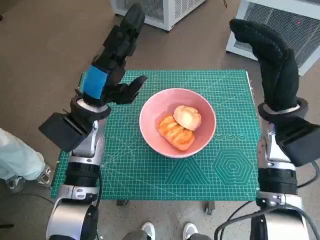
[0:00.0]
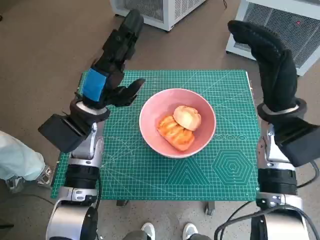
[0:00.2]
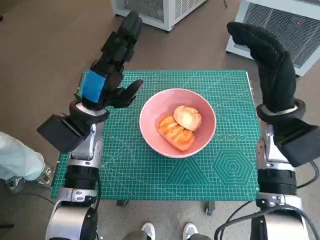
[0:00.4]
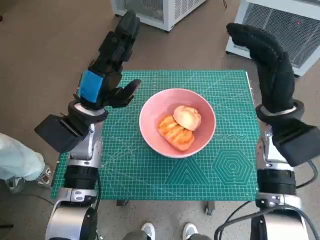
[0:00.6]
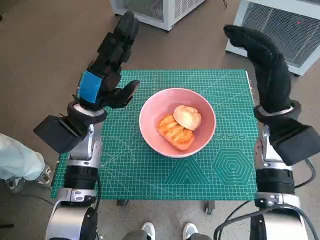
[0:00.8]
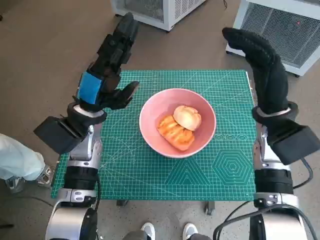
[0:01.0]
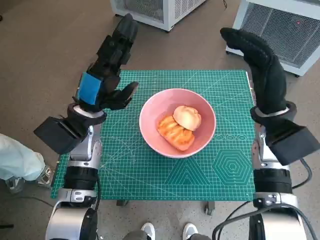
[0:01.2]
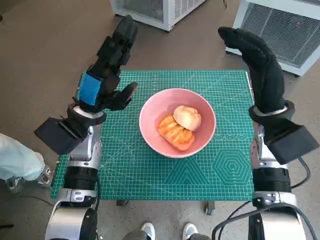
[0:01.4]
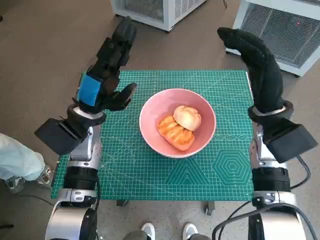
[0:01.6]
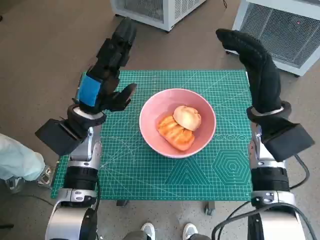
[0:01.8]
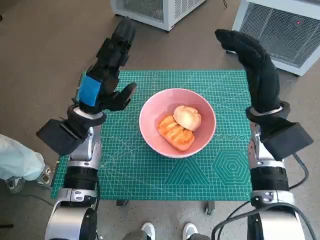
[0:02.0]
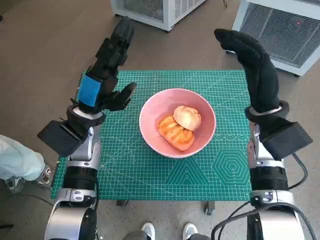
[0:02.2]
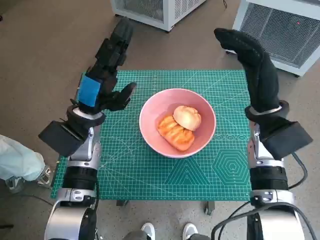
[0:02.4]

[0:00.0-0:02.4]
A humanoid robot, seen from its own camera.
Task of the whole recording: Push the bowl into the center of the table and put the bread into the bowl.
0:00.0 to 0:01.2: The hands move only a little.
0:01.2 to 0:02.4: Both hands stay about where they are.

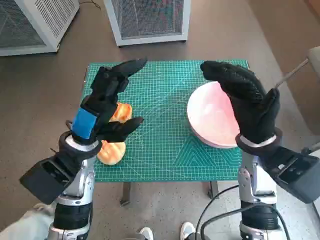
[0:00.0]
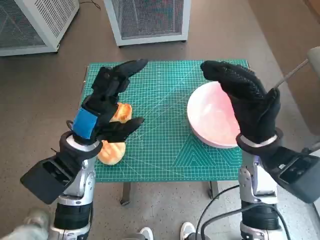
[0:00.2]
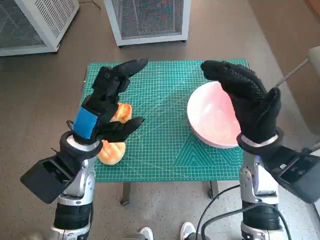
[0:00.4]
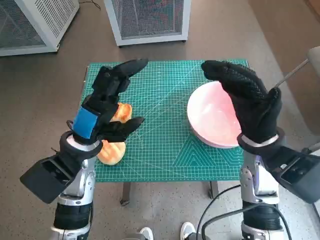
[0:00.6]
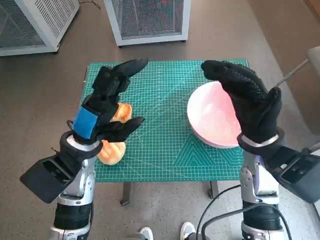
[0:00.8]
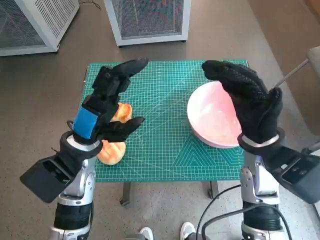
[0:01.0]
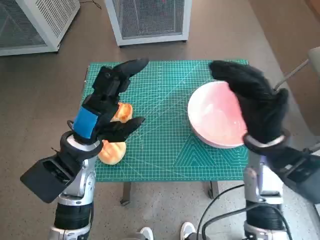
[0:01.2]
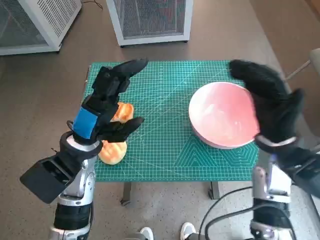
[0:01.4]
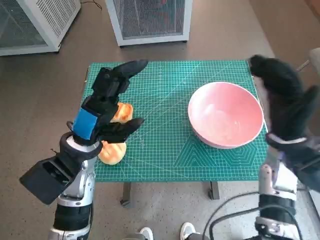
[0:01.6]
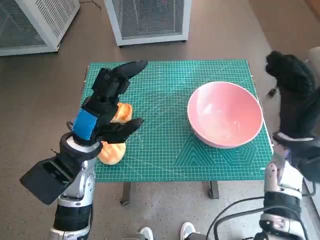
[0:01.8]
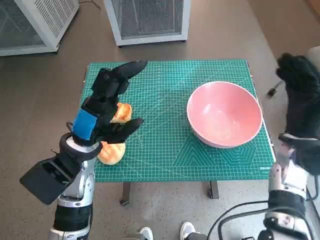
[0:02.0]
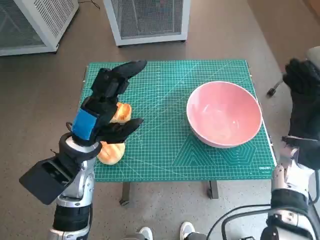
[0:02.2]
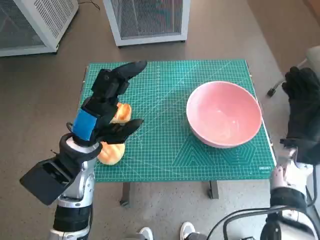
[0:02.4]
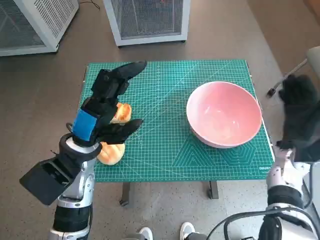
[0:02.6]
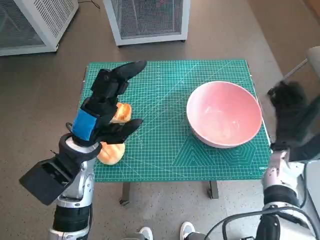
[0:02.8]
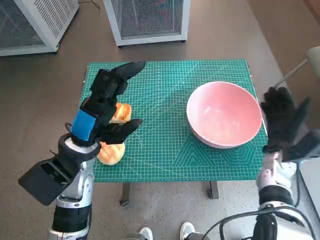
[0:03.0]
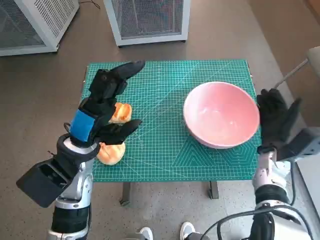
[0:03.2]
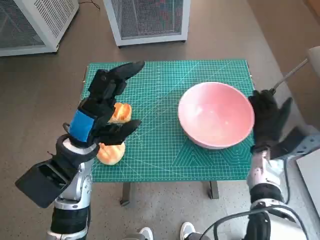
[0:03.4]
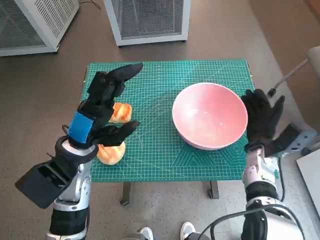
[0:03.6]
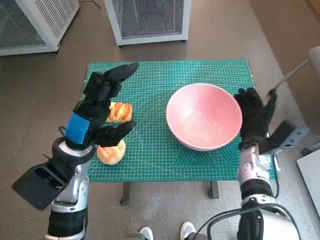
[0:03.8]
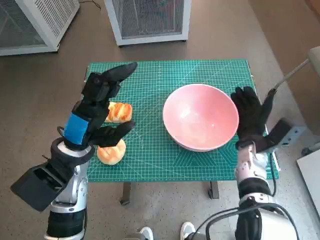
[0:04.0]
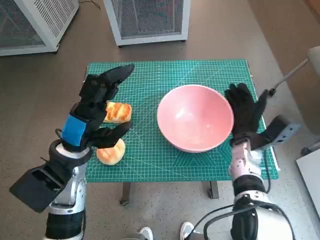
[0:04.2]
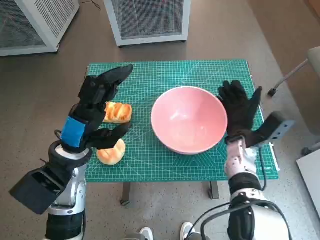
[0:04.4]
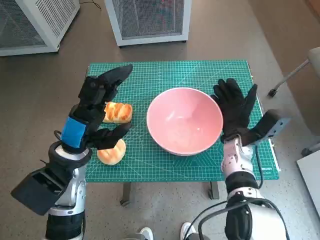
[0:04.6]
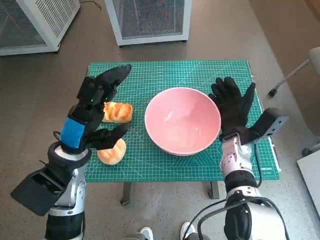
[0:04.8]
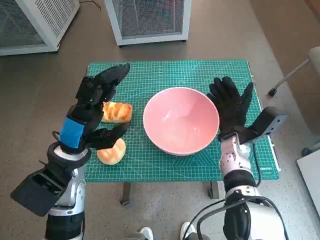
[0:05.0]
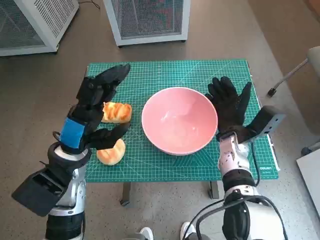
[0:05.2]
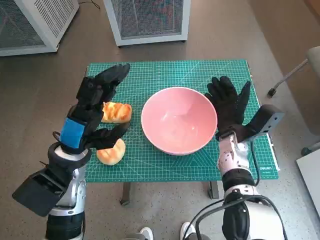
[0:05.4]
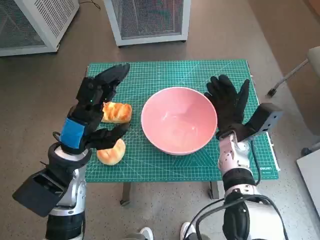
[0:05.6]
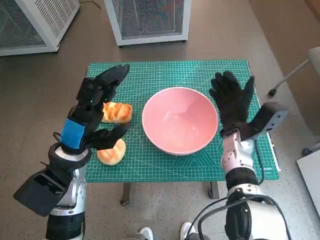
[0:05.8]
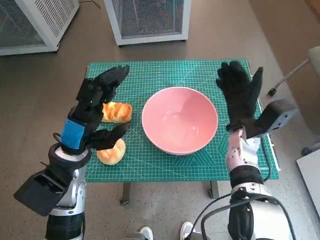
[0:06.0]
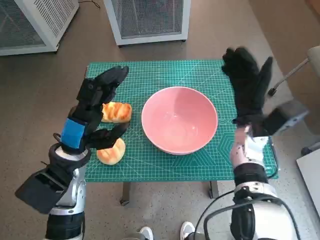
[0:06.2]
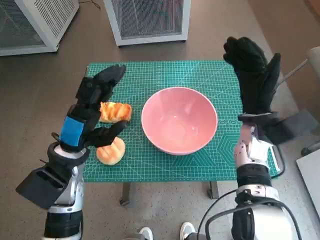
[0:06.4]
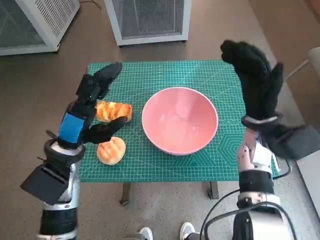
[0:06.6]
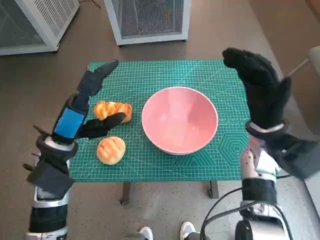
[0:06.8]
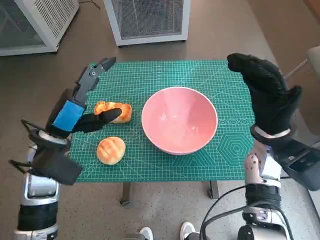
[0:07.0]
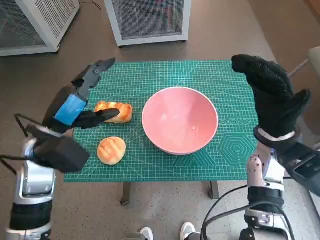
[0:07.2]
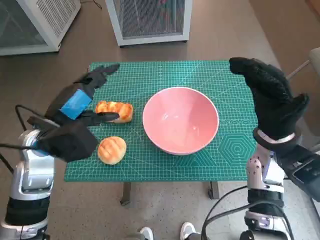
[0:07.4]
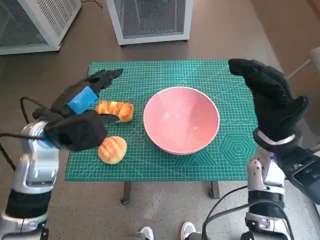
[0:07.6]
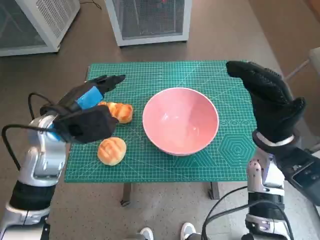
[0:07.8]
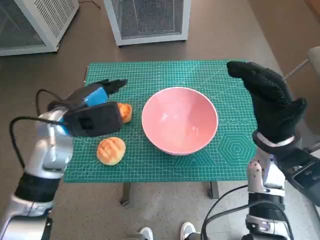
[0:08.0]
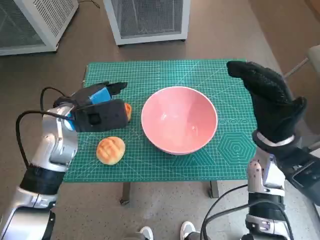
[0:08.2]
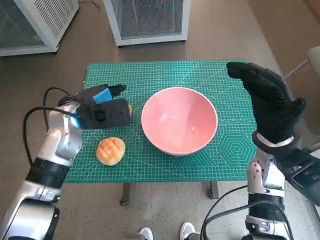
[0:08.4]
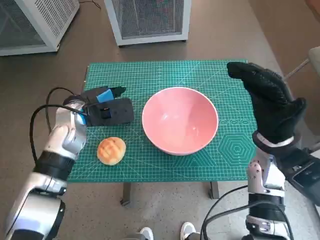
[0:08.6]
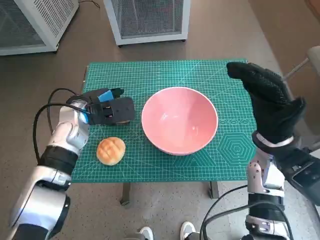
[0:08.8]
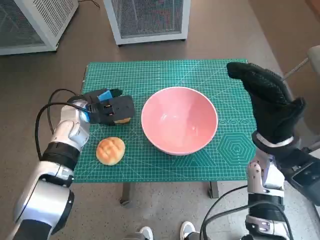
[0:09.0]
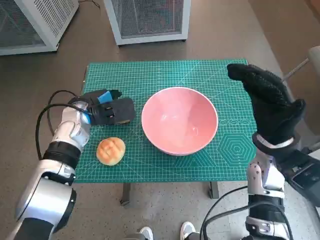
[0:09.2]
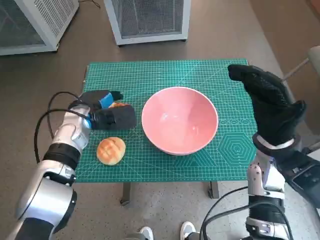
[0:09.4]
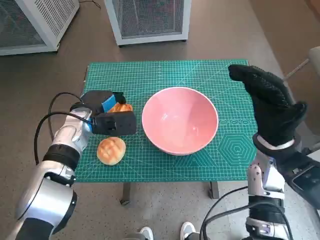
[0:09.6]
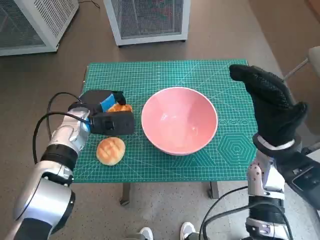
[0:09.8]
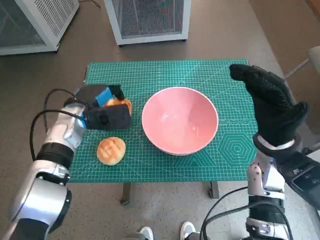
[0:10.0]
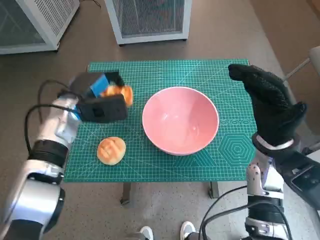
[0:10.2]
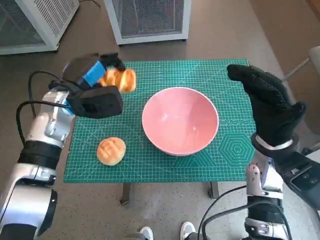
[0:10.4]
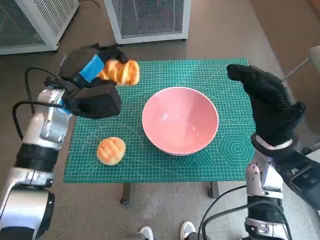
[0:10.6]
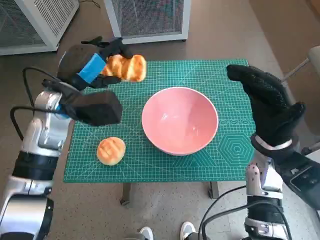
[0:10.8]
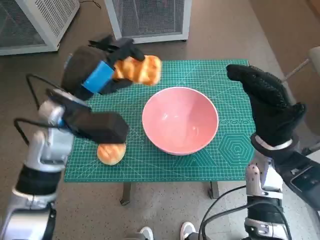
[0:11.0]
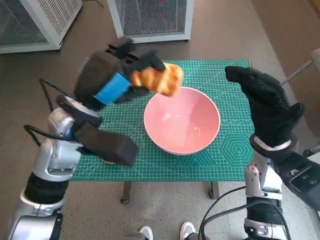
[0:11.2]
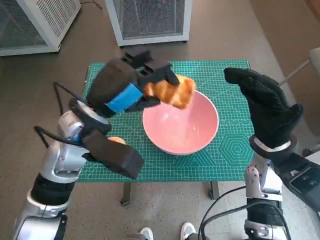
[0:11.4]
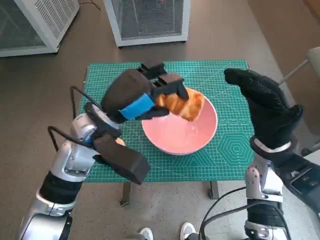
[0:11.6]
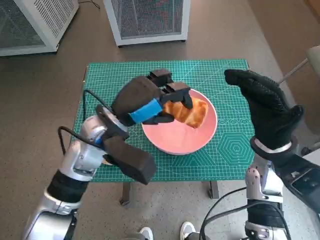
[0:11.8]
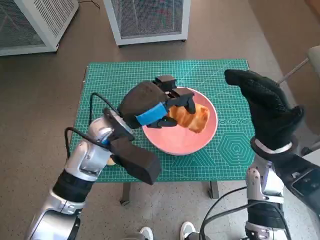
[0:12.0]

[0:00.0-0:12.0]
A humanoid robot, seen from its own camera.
Task of the whole recording: Push the bowl into the center of the table and put the bread into the bowl.
Step, 0:00.0 to 0:05.8: Move the pink bowl to the center of table with right hand.
Step, 0:06.0 to 0:09.6: Grasp the long bread with left hand.
0:01.6 to 0:03.0: The right hand heads downward, covering roughly 10 cm.
0:03.0 to 0:04.4: The right hand moves to the left, approximately 10 cm.
0:04.4 to 0:06.0: There are only small adjustments of the hands.
0:06.0 to 0:07.6: The right hand moves upward and backward, approximately 10 cm; the left hand is displaced upward by approximately 5 cm.
0:07.6 to 0:09.0: The left hand goes some 10 cm forward and downward.
0:10.4 to 0:12.0: The left hand moves to the right and backward, about 10 cm.

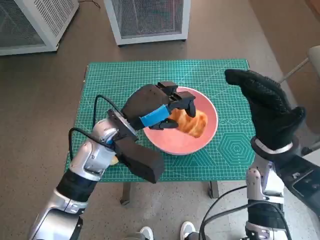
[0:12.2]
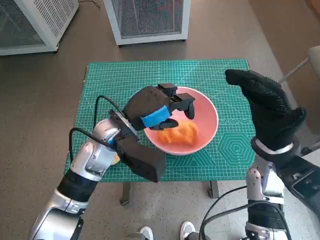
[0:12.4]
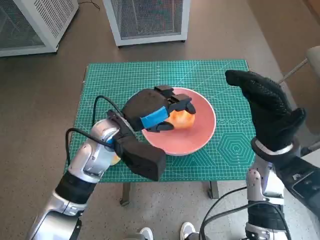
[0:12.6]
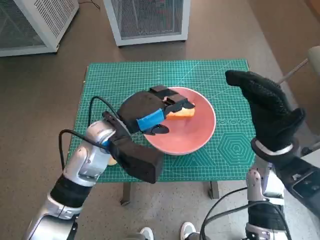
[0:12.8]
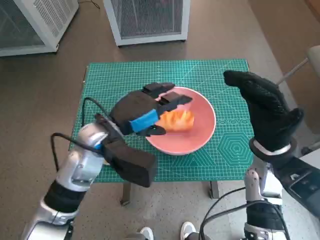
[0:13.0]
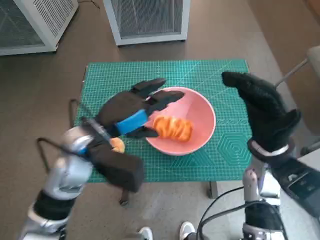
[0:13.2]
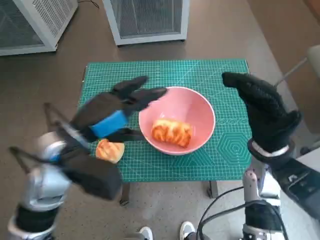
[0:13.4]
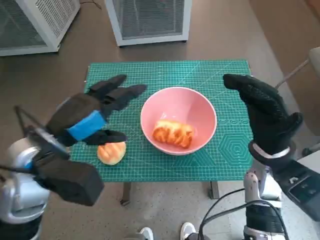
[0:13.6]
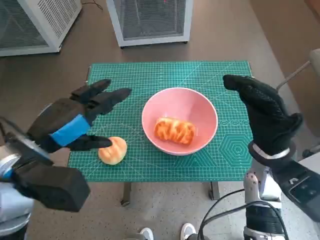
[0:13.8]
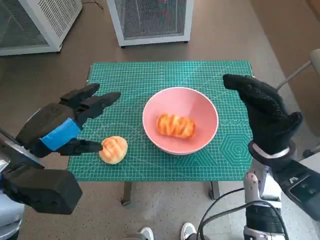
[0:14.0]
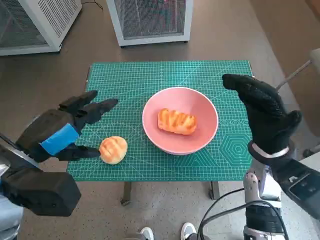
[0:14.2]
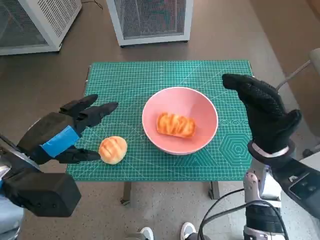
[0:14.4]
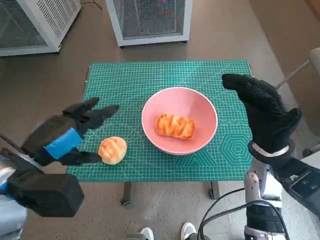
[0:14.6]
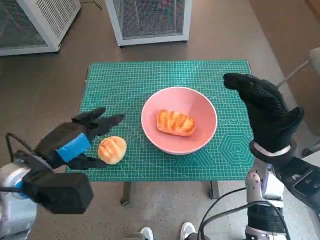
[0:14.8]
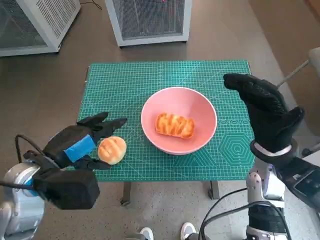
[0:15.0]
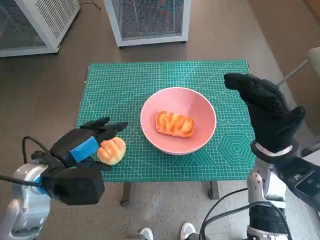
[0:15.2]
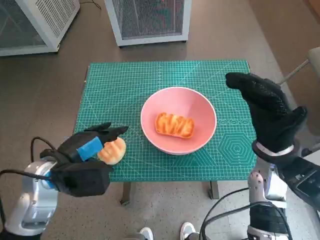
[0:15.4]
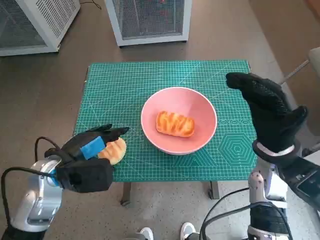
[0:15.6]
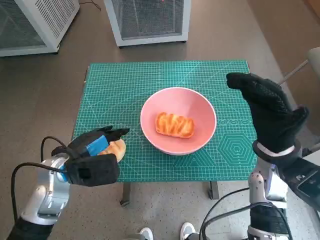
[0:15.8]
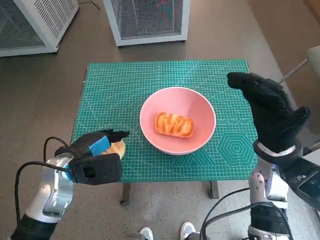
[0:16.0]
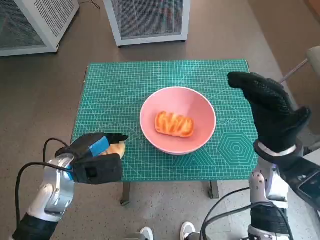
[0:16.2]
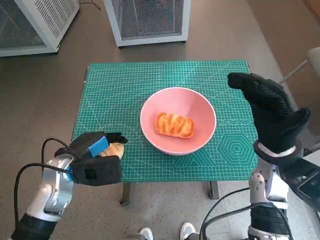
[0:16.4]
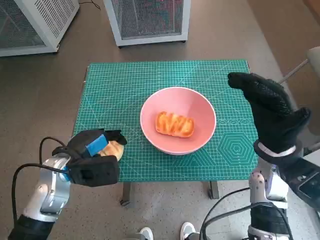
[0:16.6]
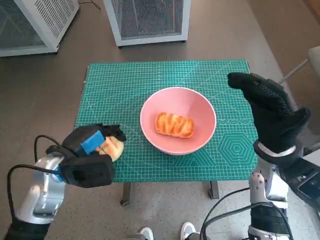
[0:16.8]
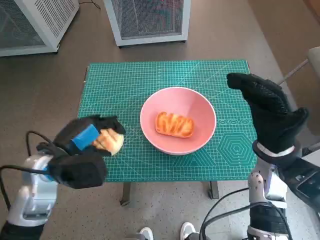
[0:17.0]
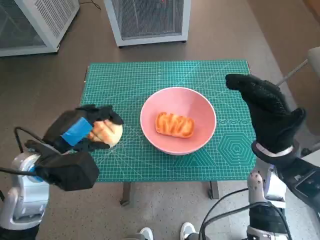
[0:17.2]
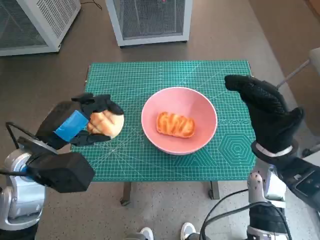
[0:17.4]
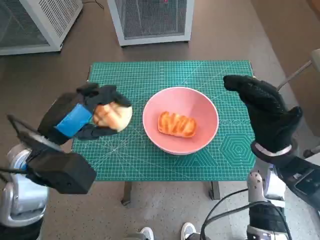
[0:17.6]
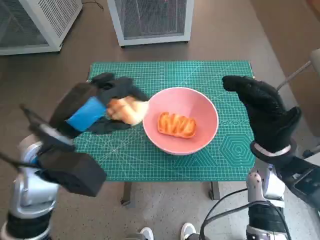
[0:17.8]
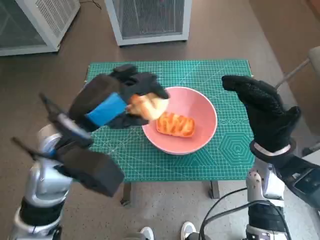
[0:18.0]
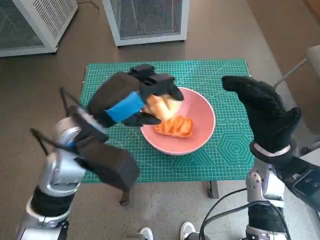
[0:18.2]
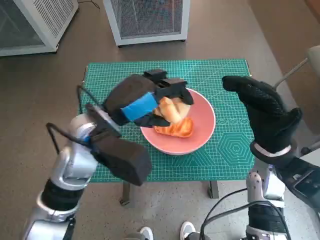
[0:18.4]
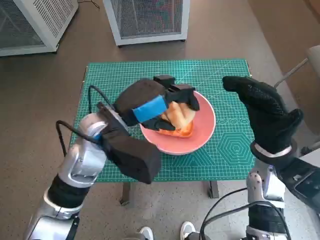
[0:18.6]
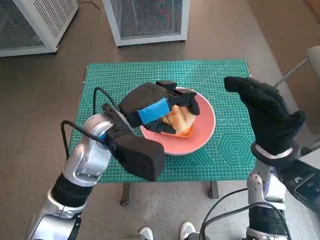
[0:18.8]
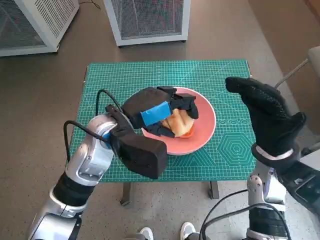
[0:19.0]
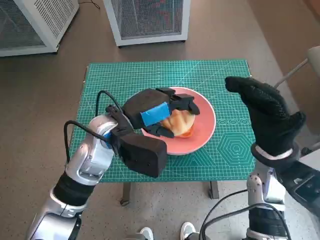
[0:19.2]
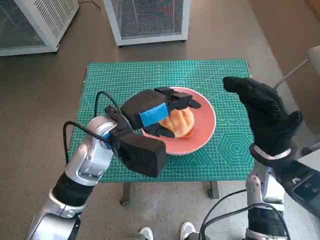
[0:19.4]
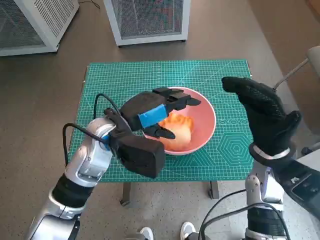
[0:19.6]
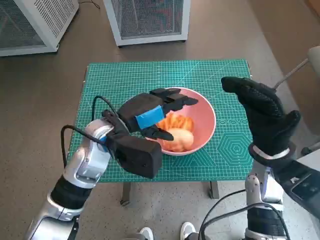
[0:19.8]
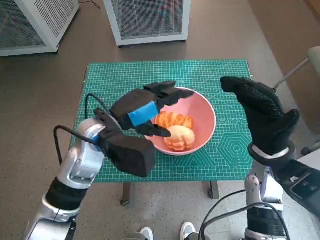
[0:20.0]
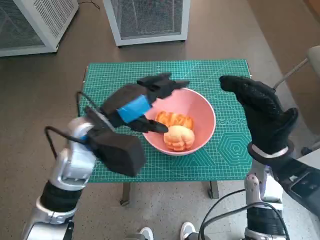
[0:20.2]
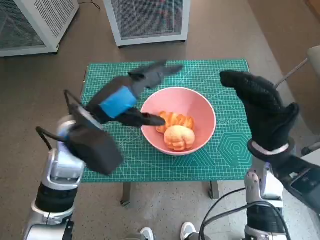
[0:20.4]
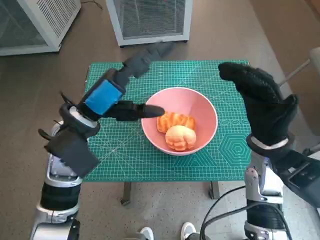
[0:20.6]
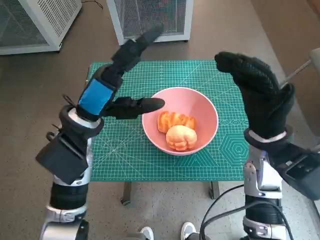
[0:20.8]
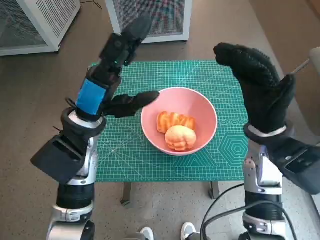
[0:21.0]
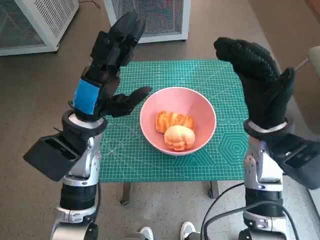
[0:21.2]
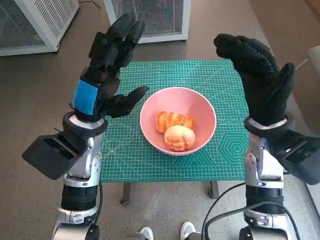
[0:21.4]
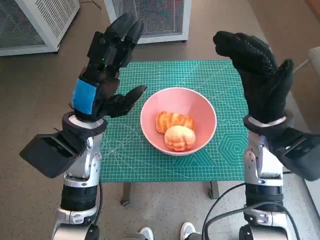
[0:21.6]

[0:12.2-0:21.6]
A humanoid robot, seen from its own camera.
Task of the whole recording: Push the bowl into the center of the table and put the bread into the bowl.
Step, 0:12.6 to 0:16.2: Grasp the round bread with left hand.
Step, 0:16.4 to 0:19.4: Place the round bread in pink bowl with left hand.
0:12.2 to 0:13.8: The left hand goes approximately 15 cm to the left, backward and upward.
0:13.8 to 0:15.4: The left hand moves downward, roughly 10 cm.
0:15.4 to 0:17.0: There are only small adjustments of the hands.
0:17.0 to 0:18.4: The left hand shifts approximately 10 cm to the right and upward.
0:18.4 to 0:20.0: The hands stay close to where they were, moving slightly.
0:20.0 to 0:21.6: The right hand changes place by about 5 cm.
